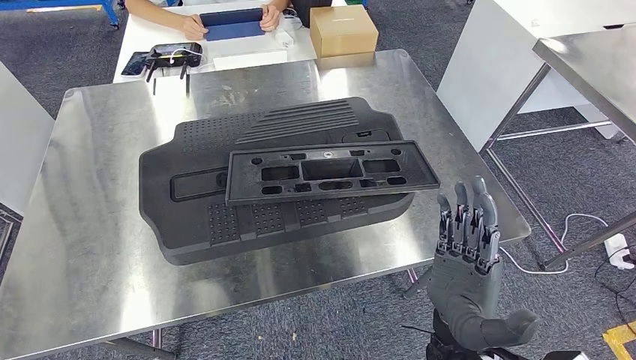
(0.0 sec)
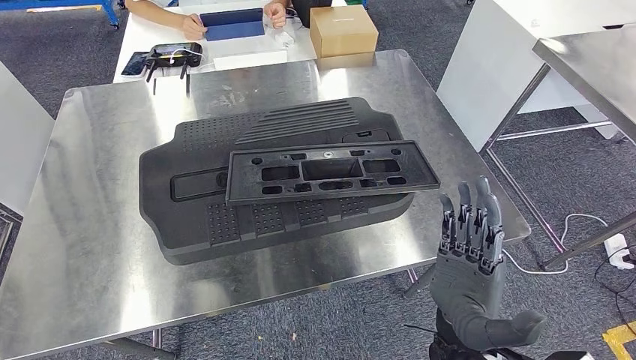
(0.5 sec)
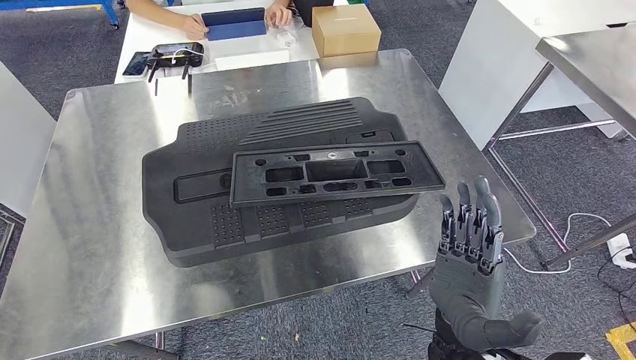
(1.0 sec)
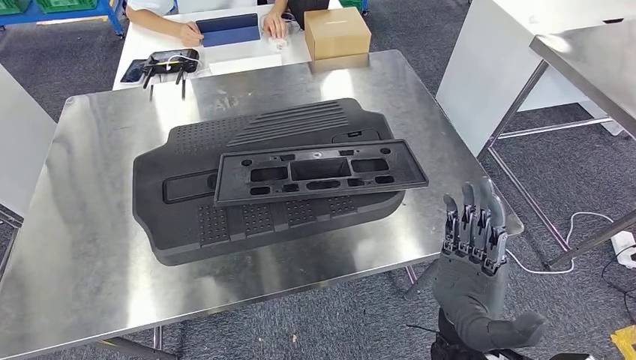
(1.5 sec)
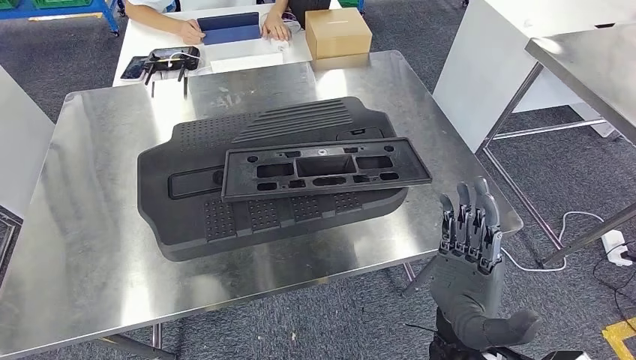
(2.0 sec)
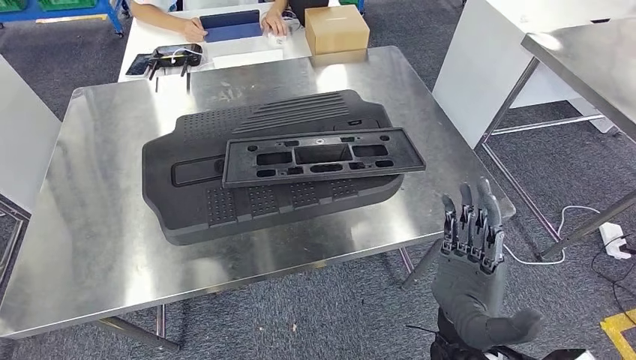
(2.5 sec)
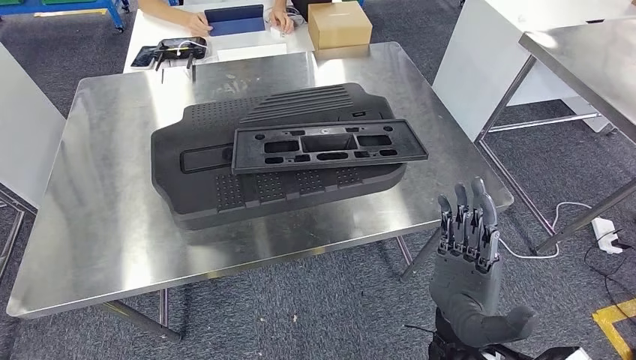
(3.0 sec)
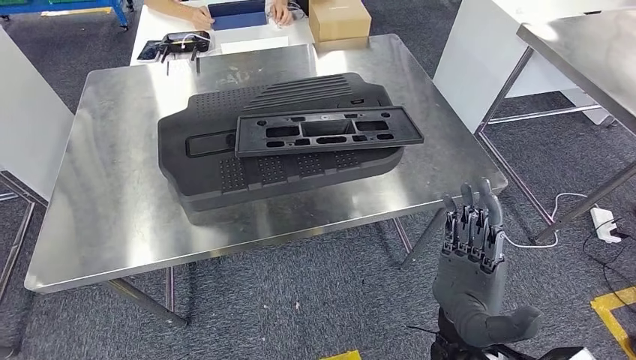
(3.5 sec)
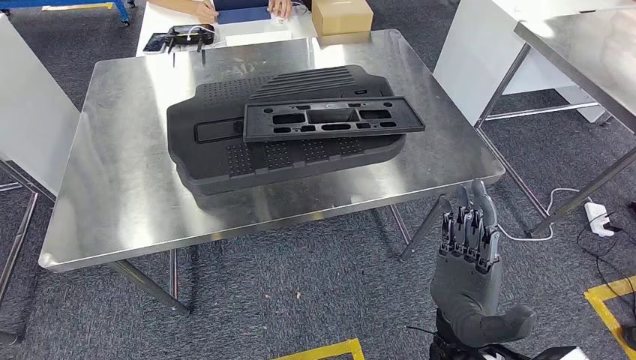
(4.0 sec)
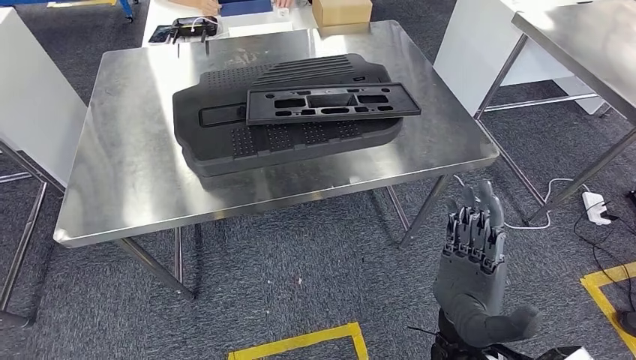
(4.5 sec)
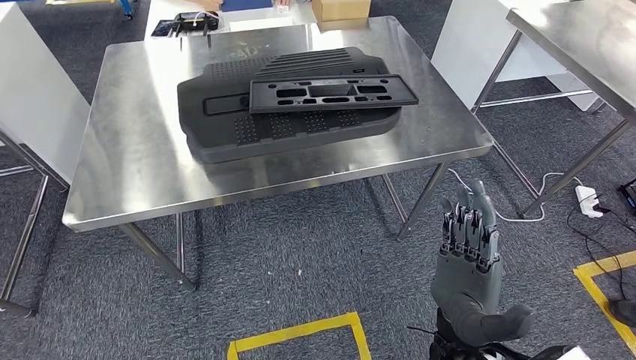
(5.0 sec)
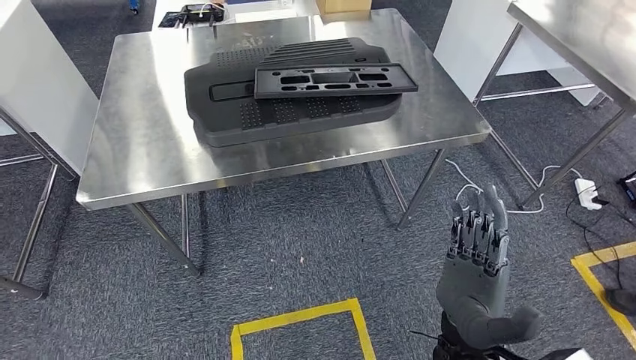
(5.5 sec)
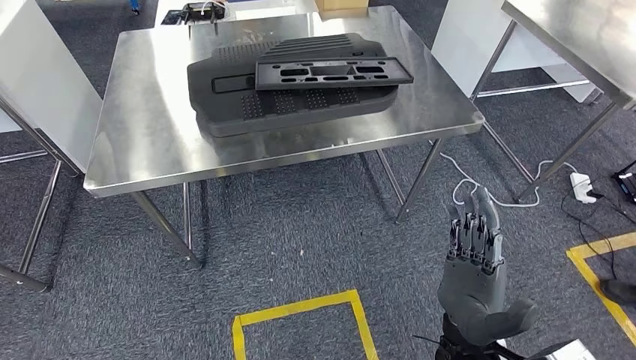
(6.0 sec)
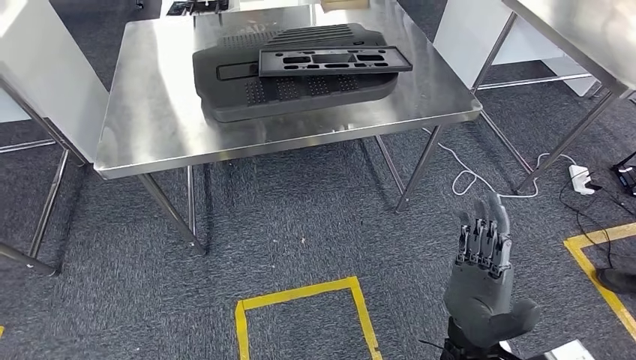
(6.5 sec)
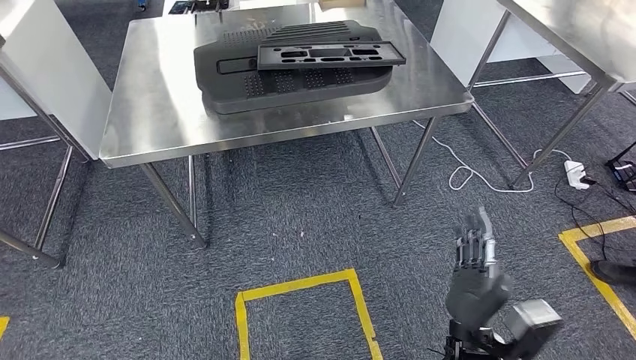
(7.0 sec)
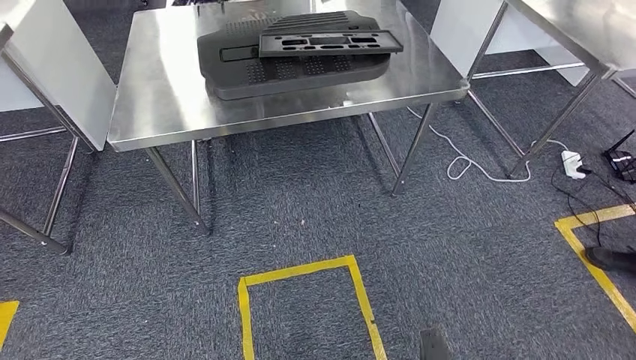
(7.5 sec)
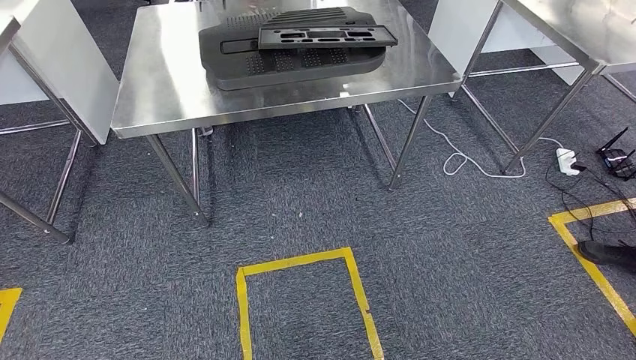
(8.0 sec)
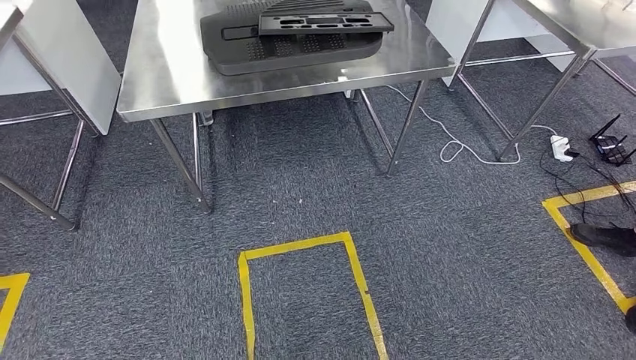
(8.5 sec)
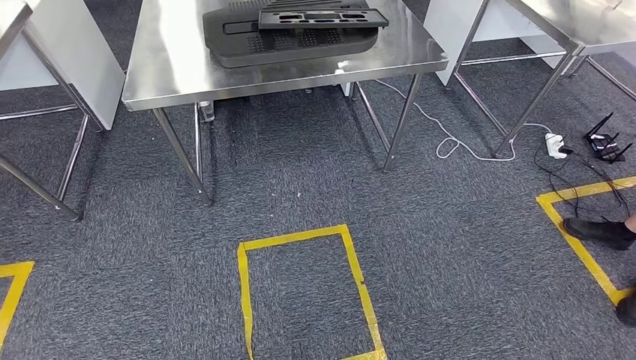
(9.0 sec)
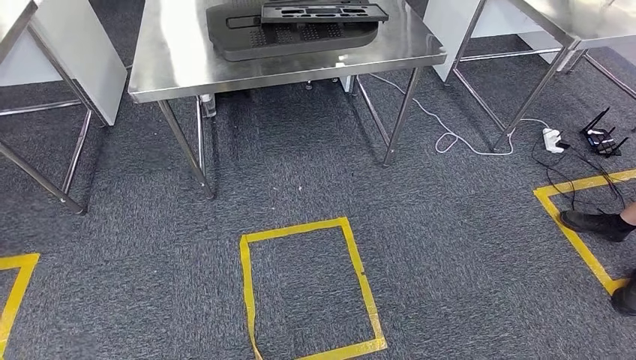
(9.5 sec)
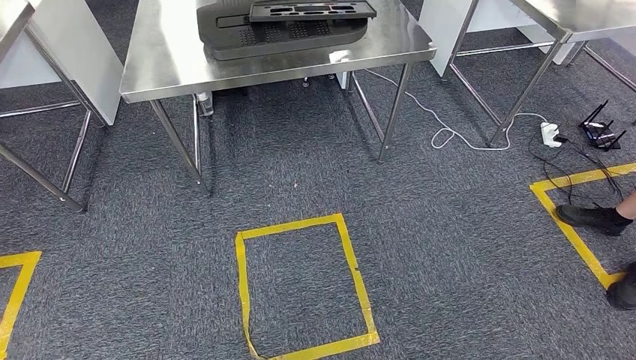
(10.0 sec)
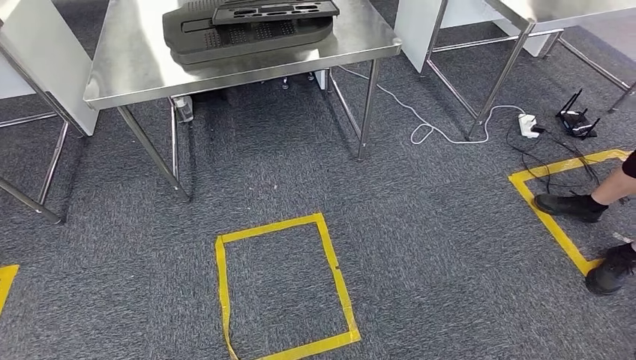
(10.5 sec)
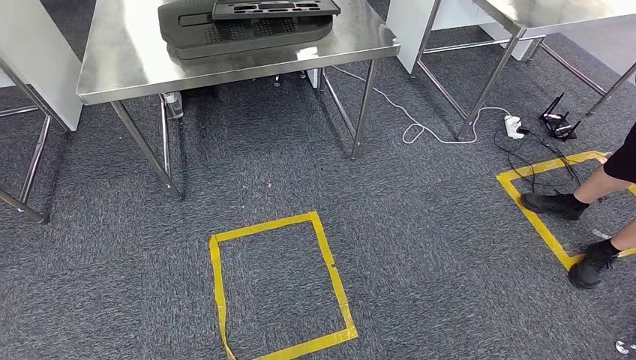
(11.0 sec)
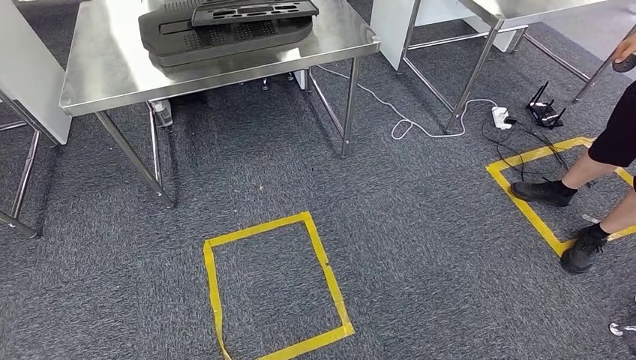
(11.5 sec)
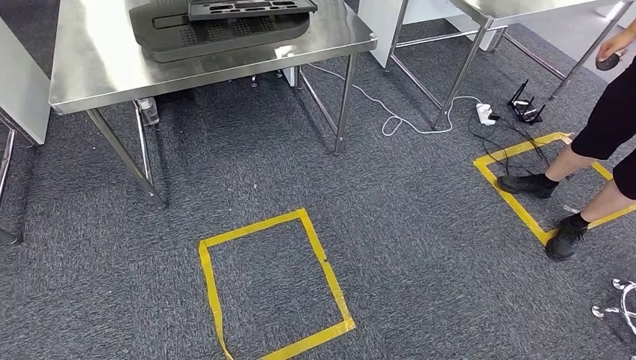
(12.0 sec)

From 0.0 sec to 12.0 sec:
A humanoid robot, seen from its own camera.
Step, from 0.0 sec to 2.5 sec: Insert the large material into the corresponding slot on the workbench.
From 0.0 sec to 2.0 sec: The two hands keep their place.

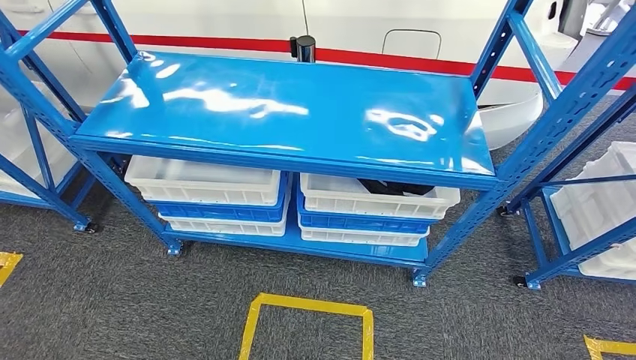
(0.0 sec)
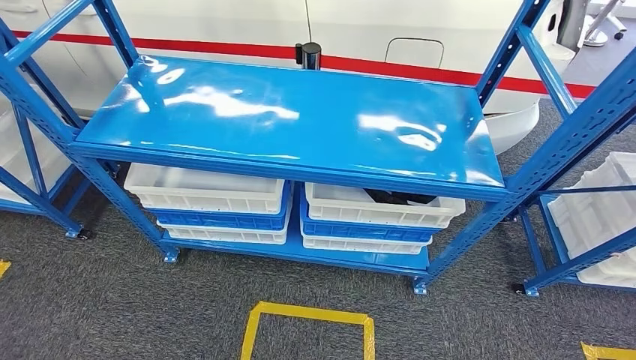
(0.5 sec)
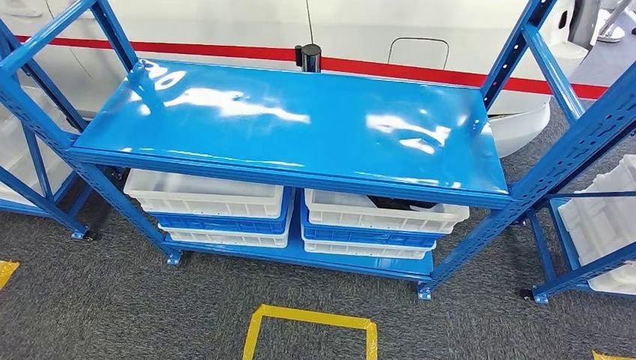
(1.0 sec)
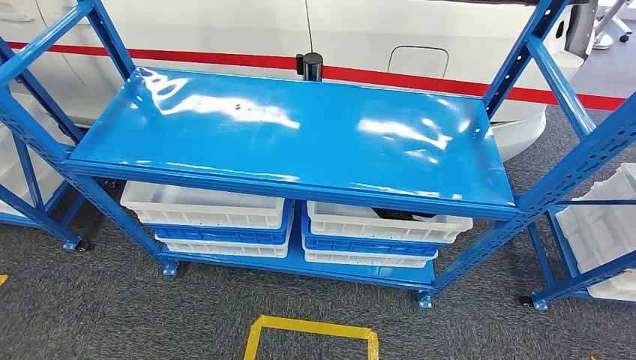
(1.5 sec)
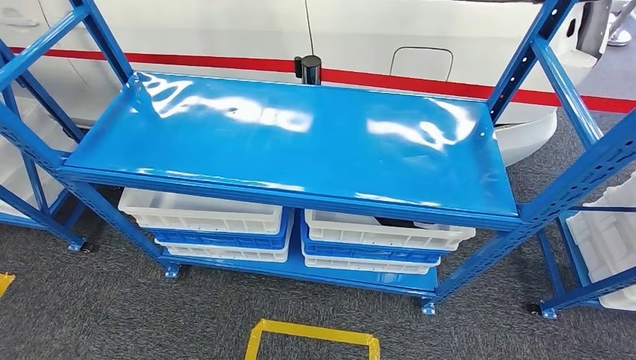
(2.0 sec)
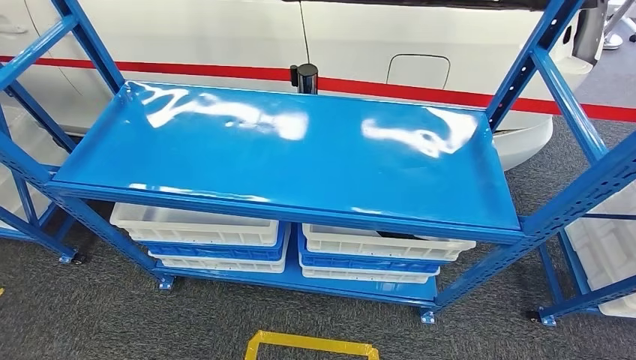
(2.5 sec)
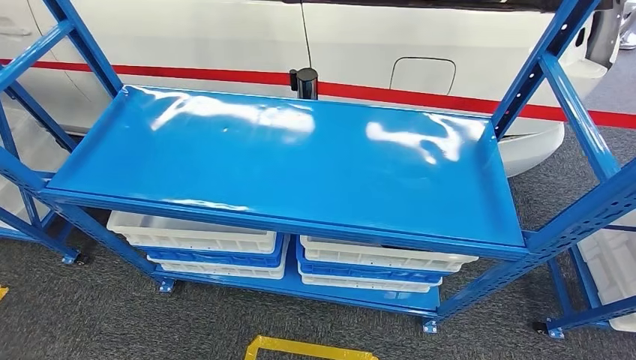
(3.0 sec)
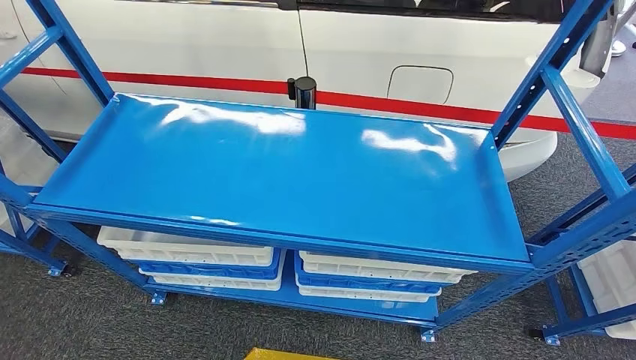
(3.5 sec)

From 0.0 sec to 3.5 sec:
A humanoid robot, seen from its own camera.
Step, from 0.0 sec to 3.5 sec: Move to the initial position of the shelf.
